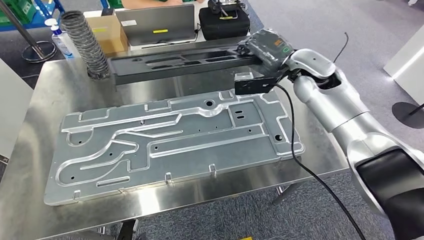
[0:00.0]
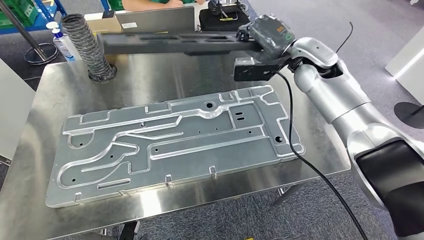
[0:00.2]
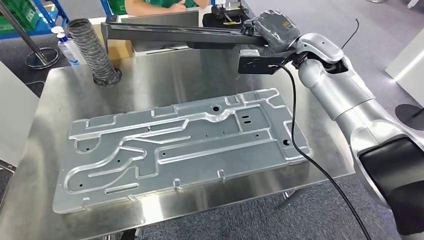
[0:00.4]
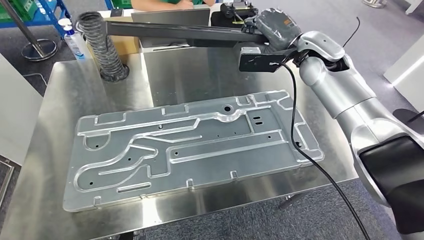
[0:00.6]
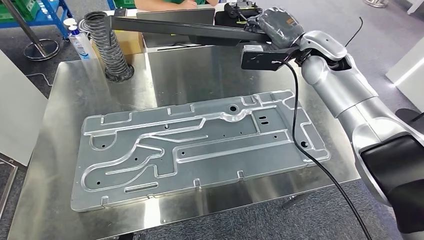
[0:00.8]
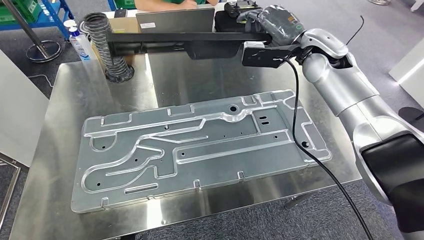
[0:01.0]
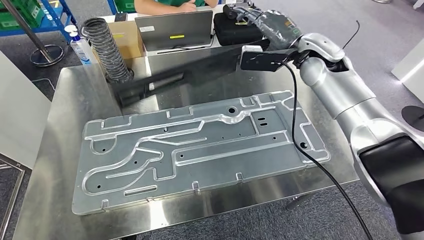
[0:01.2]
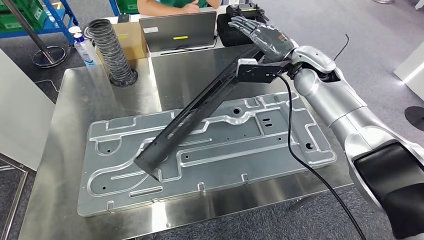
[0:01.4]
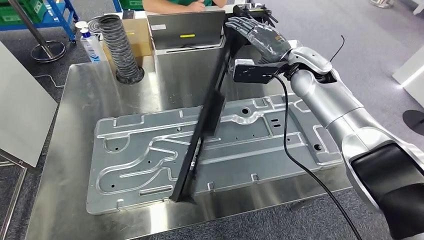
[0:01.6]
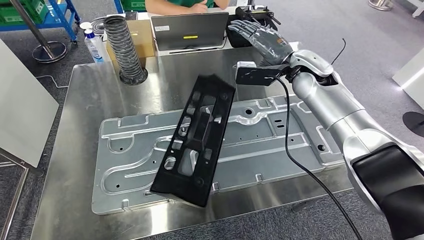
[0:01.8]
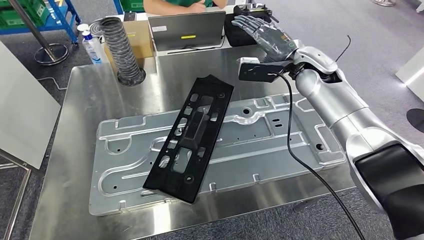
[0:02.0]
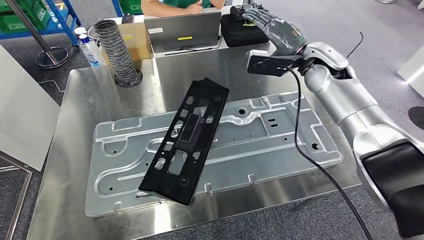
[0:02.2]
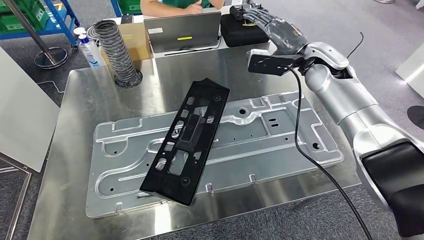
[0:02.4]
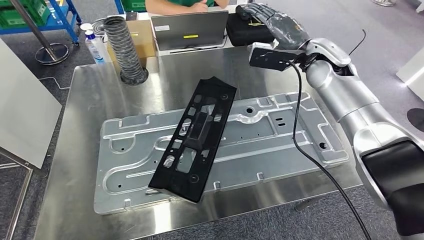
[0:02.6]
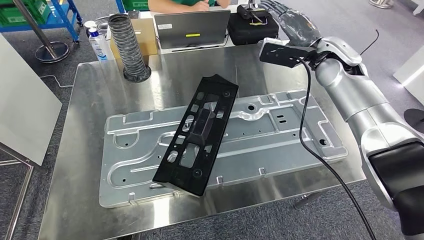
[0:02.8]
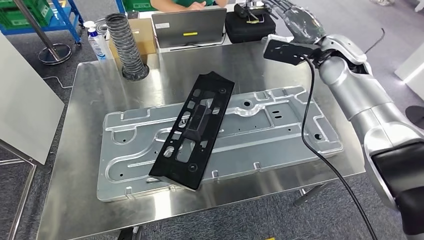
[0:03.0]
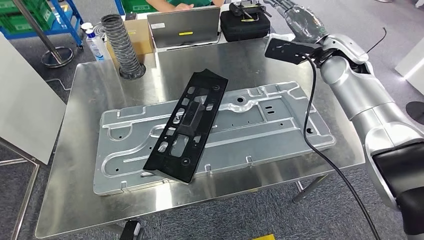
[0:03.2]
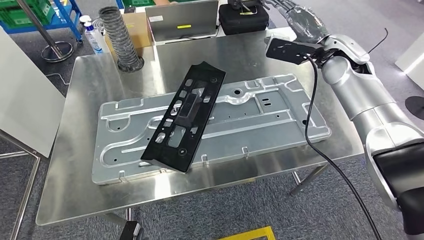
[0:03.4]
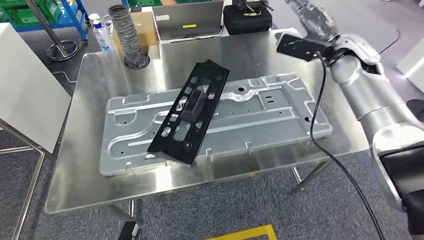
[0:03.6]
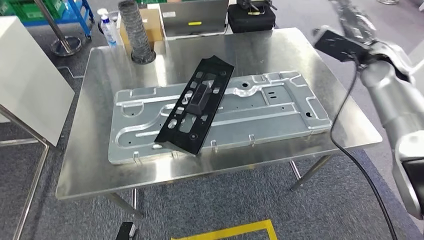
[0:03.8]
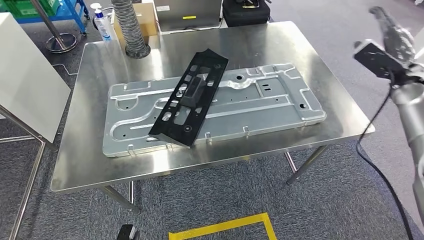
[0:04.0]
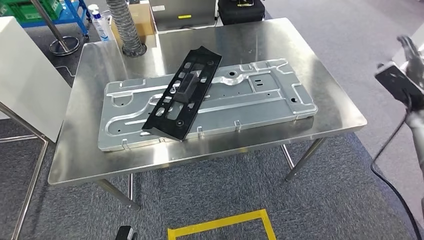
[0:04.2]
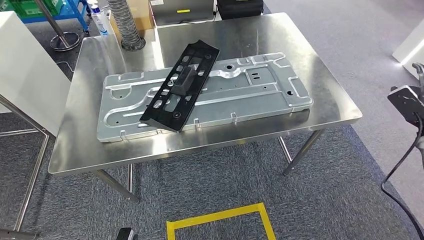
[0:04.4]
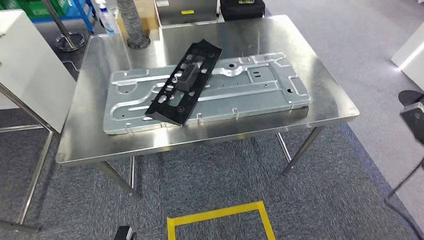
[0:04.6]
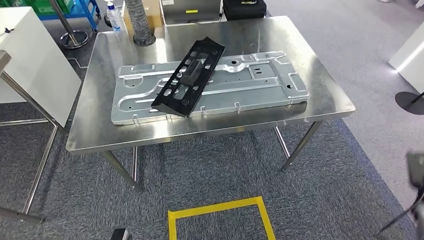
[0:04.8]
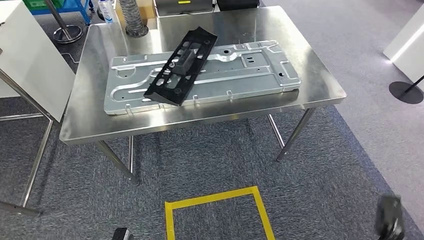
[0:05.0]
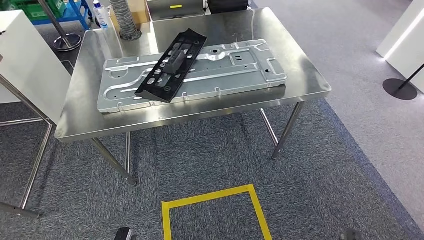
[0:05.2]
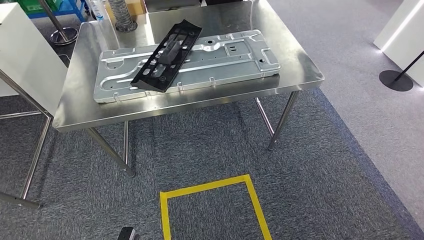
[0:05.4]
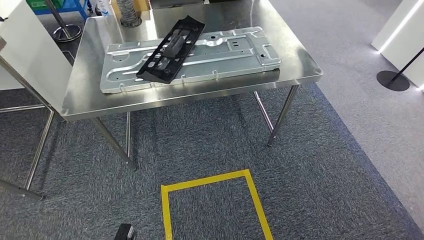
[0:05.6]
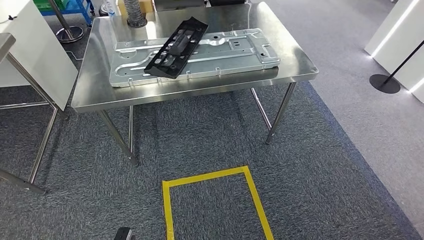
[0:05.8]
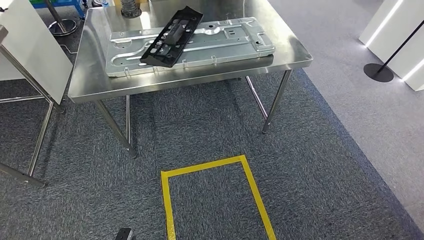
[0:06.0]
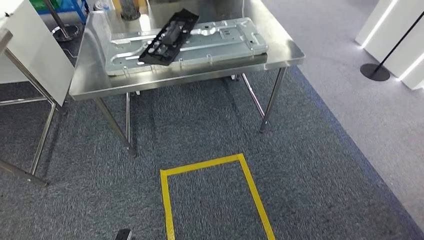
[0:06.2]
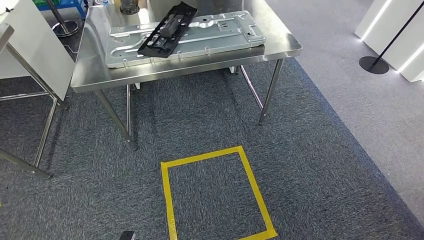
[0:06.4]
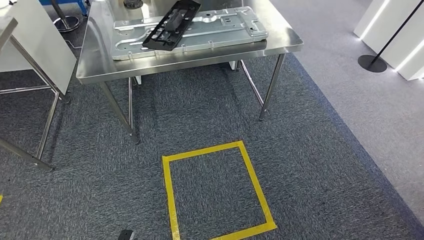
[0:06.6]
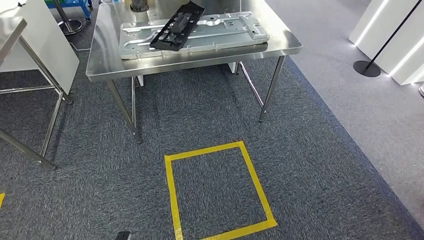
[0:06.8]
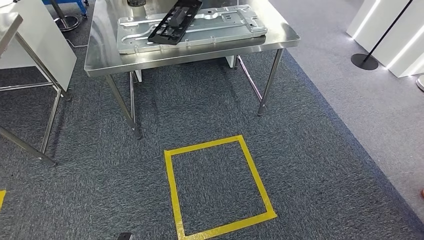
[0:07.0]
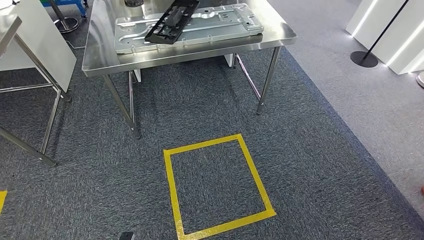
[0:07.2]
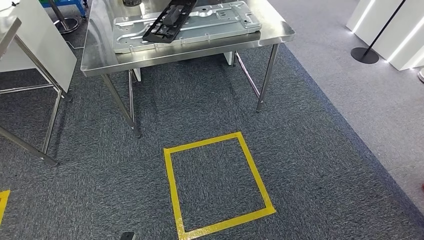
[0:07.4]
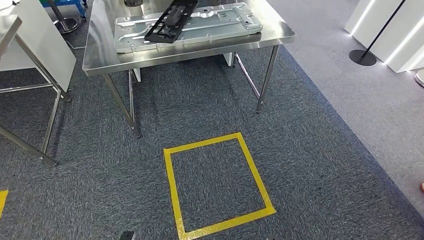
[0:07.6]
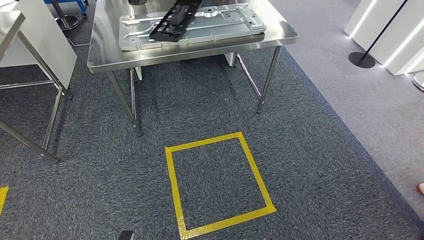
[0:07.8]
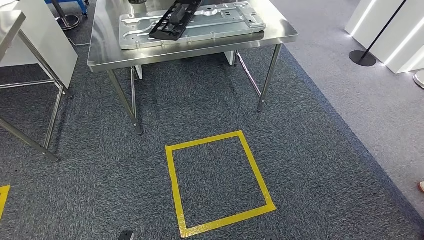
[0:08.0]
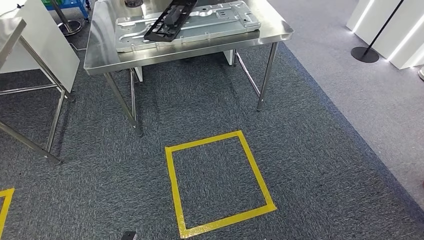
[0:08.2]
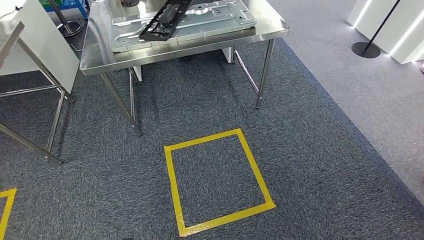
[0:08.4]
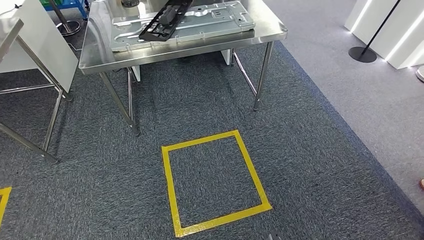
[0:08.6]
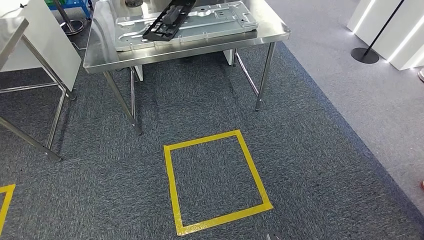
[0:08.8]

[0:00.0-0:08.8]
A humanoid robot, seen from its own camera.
Step, 0:00.2 to 0:04.2: Insert the large material into the corresponding hole on the workbench.
Step, 0:05.4 to 0:08.8: Move to the initial position of the shelf.
0:07.4 to 0:08.8: The left hand moves backward, roughly 10 cm.
